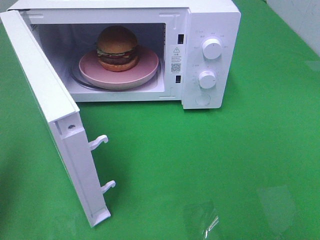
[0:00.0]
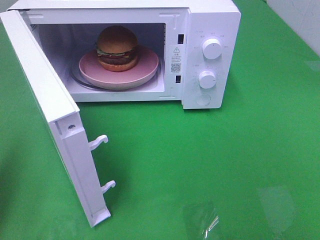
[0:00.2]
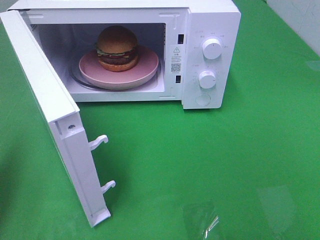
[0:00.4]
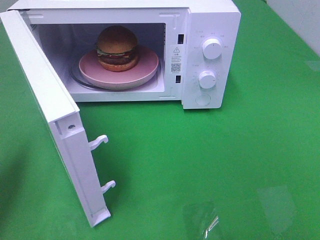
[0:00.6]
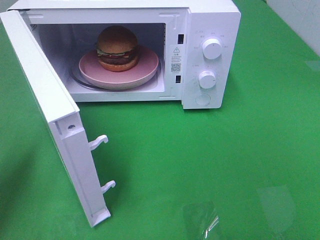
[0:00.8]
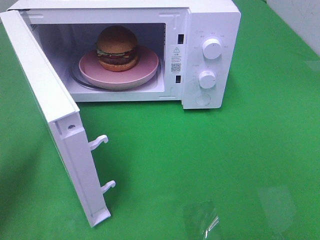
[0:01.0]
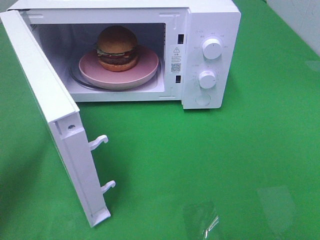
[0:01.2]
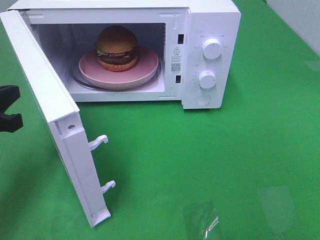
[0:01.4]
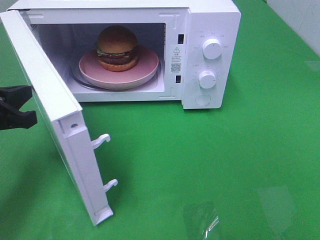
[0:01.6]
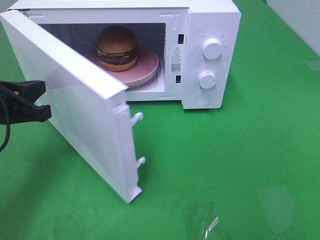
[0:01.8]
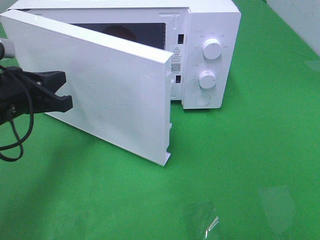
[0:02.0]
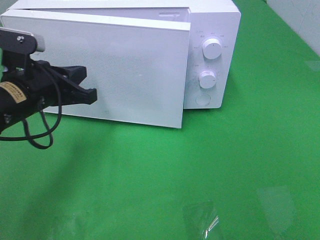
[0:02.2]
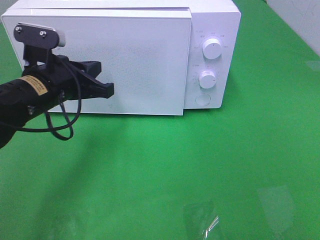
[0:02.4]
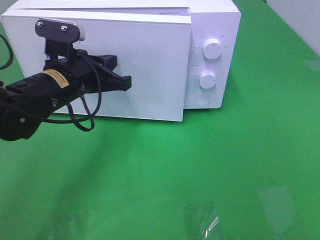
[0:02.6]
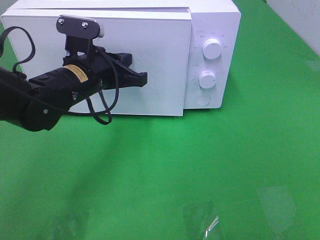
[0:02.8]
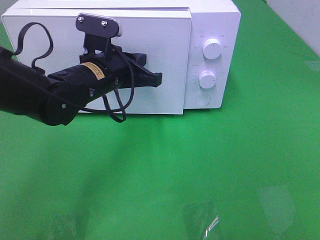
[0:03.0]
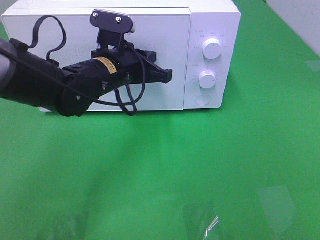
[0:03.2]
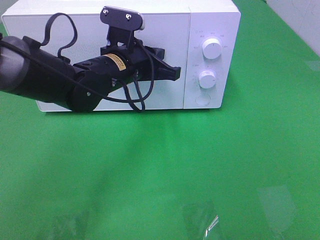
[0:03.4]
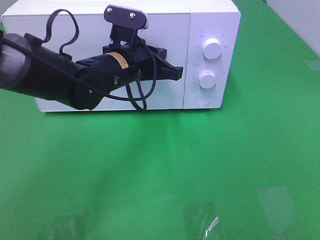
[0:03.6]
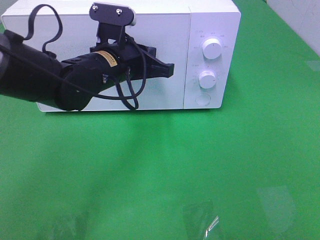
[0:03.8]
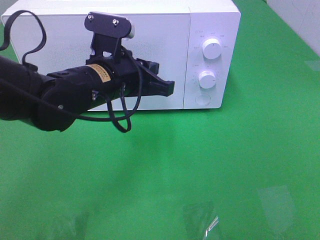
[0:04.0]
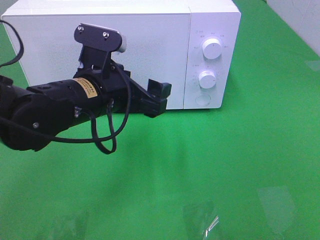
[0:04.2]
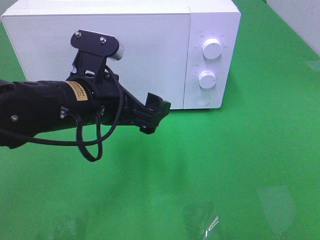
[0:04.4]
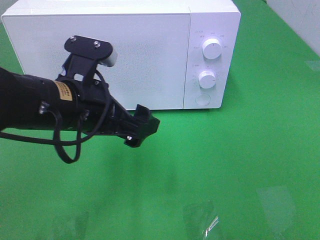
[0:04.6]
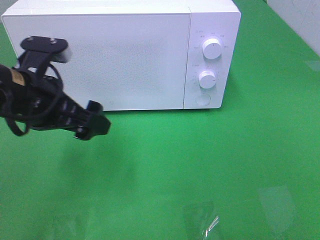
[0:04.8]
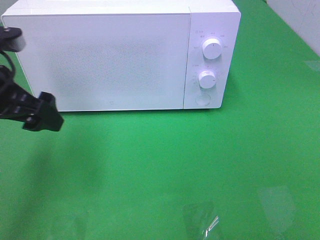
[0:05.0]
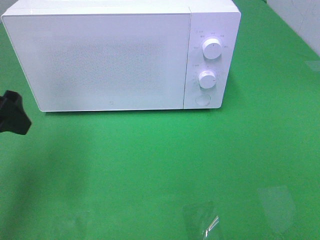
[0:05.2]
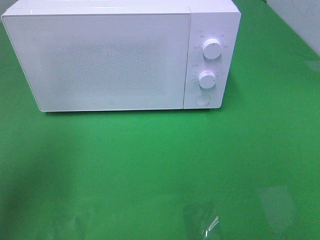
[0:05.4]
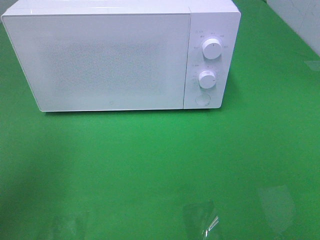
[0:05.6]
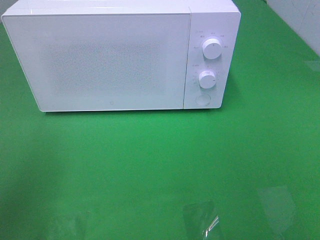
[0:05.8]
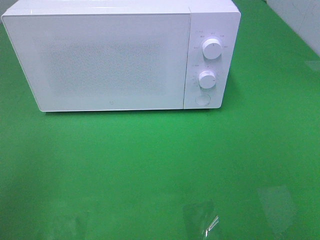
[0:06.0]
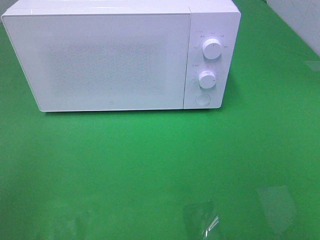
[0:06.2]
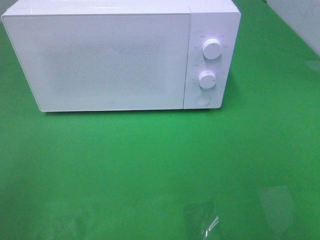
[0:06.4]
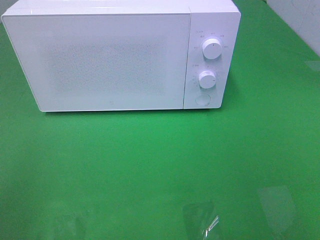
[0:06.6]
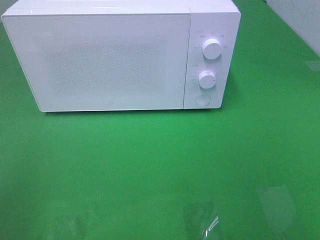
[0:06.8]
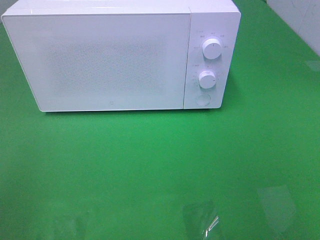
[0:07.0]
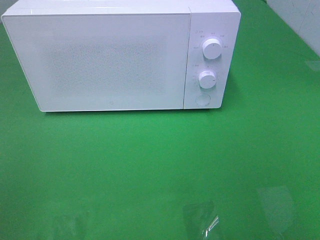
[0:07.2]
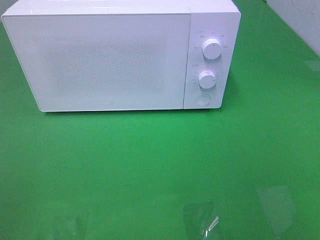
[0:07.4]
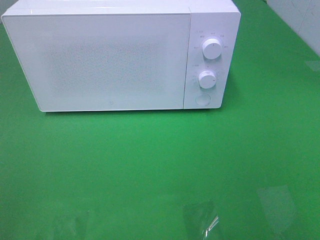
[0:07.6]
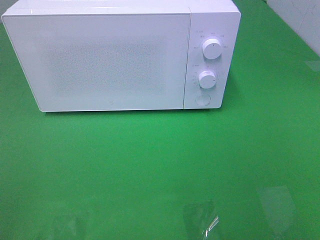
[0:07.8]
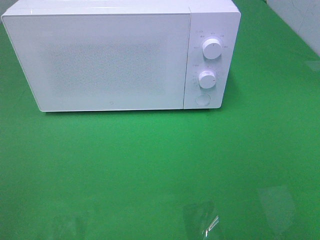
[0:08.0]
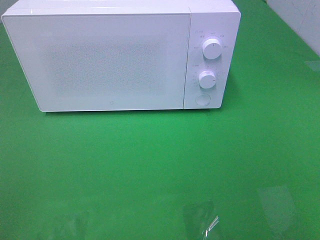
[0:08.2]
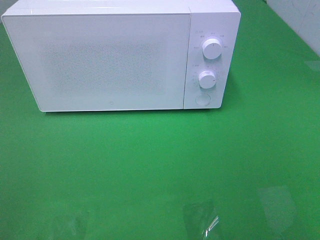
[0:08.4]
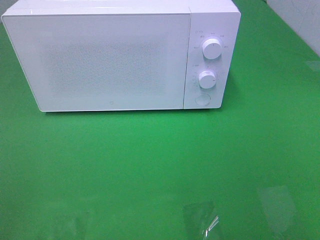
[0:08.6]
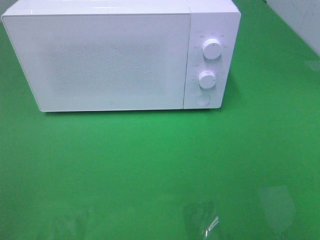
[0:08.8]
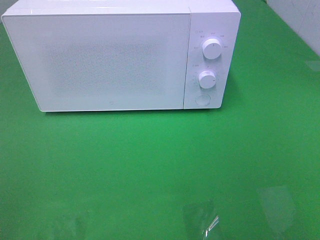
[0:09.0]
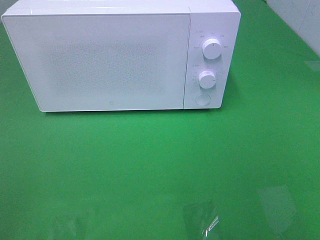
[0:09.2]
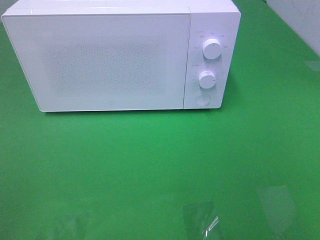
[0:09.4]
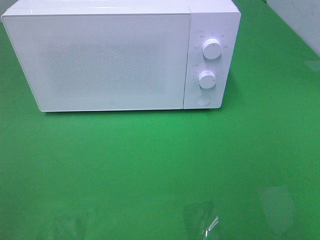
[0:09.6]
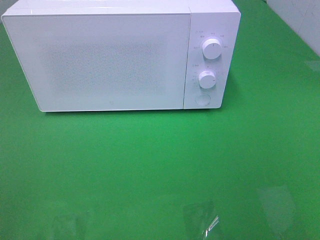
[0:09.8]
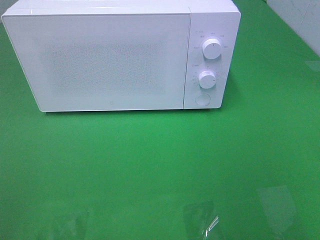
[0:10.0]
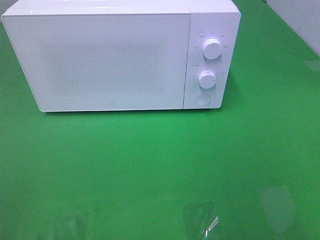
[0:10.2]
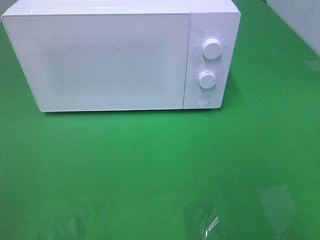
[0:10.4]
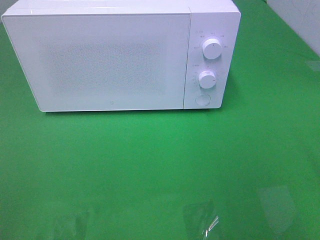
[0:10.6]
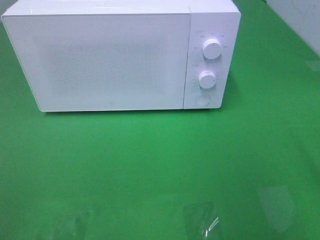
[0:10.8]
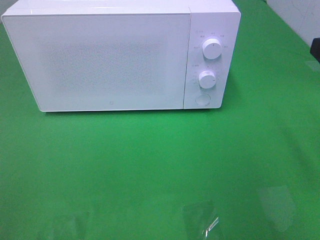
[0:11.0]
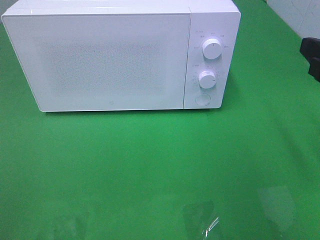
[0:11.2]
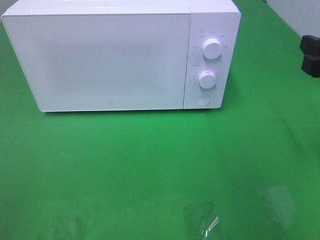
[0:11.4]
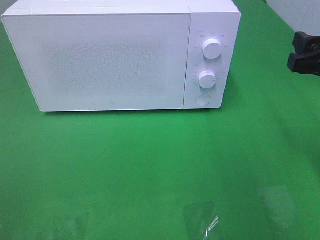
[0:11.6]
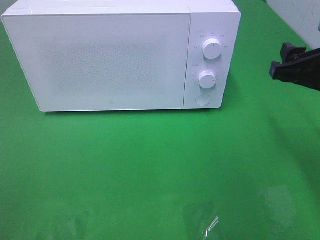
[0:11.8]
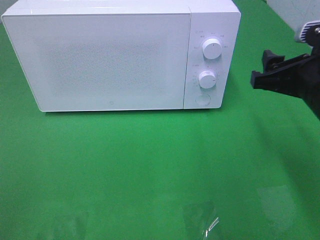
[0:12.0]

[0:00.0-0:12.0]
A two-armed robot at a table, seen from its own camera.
Task of the whole recording: Heat the burger.
Step, 0:00.0 to 0:03.8: Left hand: close the microwave door.
0:00.0 to 0:01.6: The left gripper moves downward, forward and to the right, approximately 15 cm.
0:01.6 to 0:03.0: The left gripper travels to the right and forward by roughly 20 cm.
0:03.0 to 0:04.4: The left gripper shifts some 10 cm backward, and opens its fingers.
0:04.4 to 0:06.0: The left gripper moves to the left, backward and upward, approximately 30 cm.
0:07.6 to 0:09.0: Neither gripper changes place.
0:10.4 to 0:12.0: The right gripper goes roughly 20 cm forward, downward and to the left.

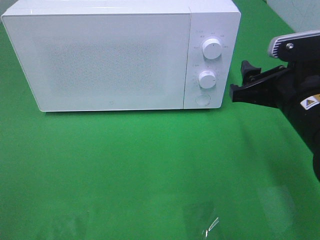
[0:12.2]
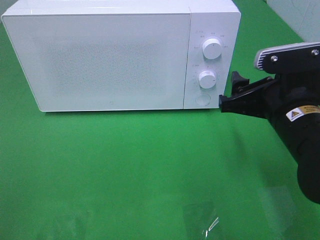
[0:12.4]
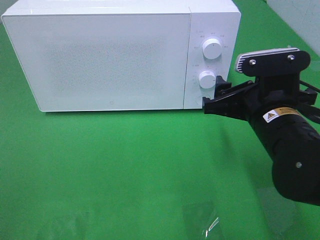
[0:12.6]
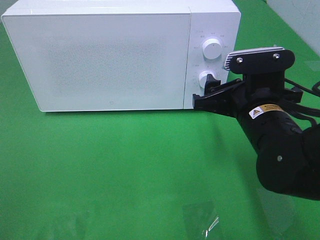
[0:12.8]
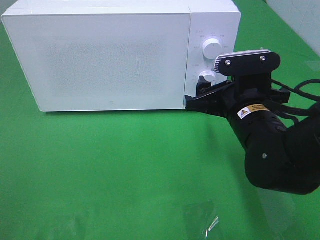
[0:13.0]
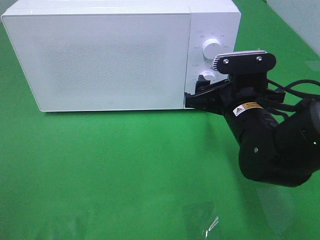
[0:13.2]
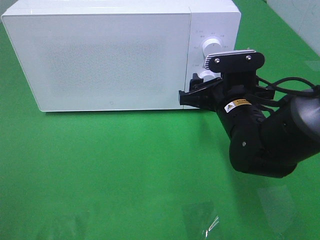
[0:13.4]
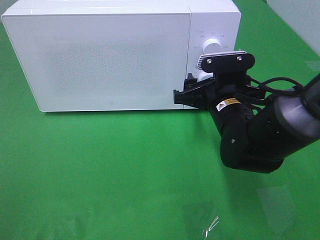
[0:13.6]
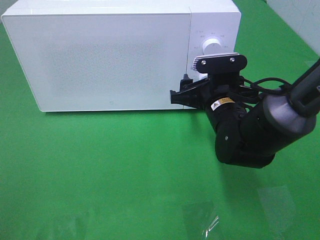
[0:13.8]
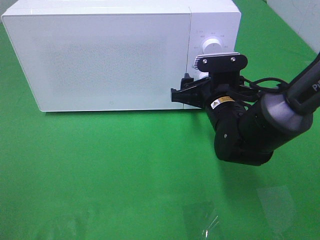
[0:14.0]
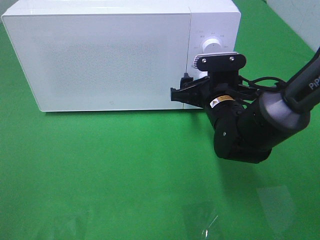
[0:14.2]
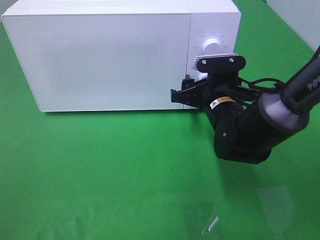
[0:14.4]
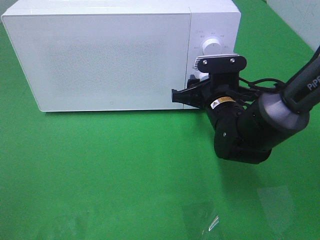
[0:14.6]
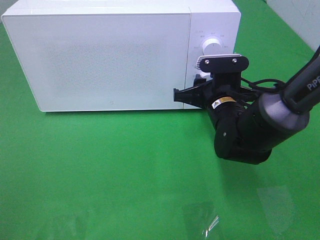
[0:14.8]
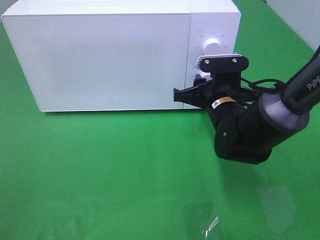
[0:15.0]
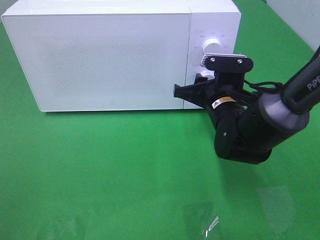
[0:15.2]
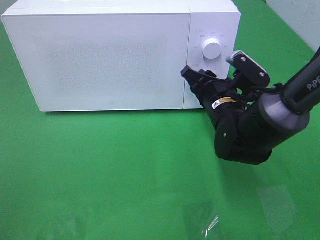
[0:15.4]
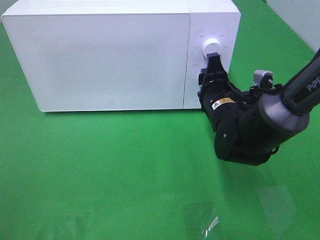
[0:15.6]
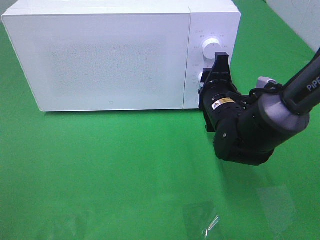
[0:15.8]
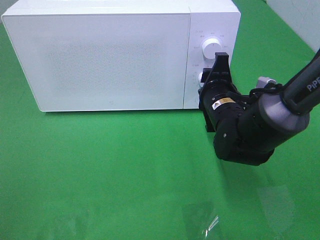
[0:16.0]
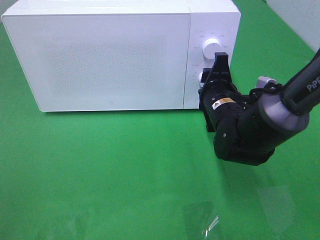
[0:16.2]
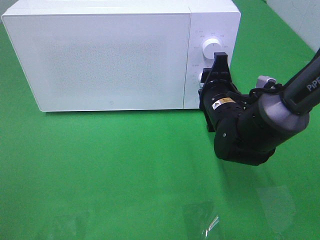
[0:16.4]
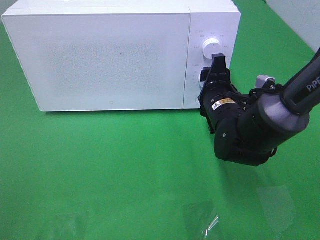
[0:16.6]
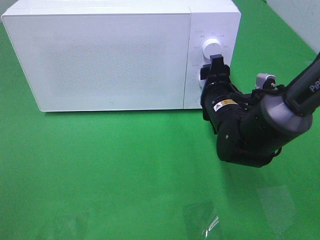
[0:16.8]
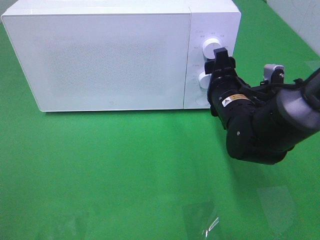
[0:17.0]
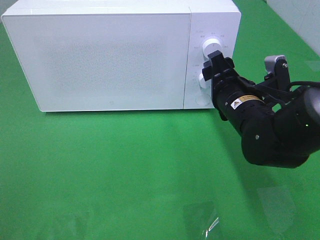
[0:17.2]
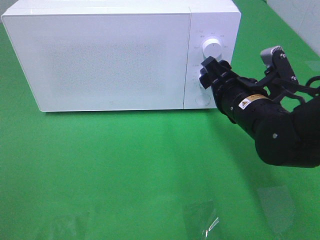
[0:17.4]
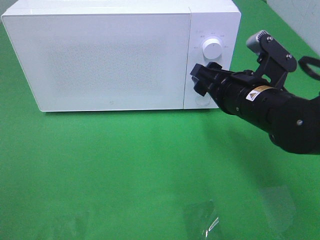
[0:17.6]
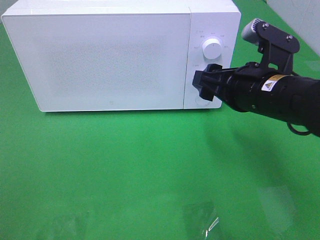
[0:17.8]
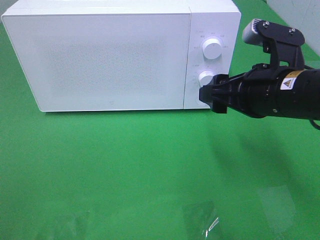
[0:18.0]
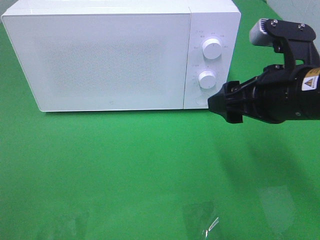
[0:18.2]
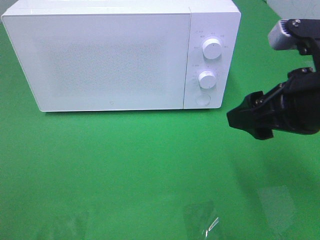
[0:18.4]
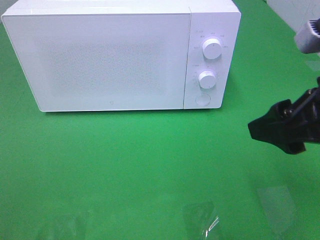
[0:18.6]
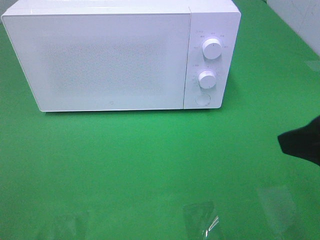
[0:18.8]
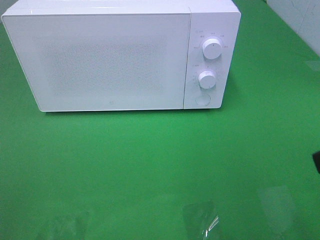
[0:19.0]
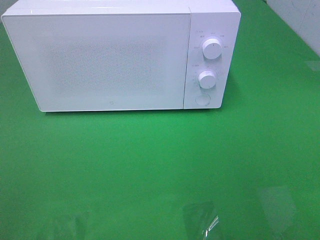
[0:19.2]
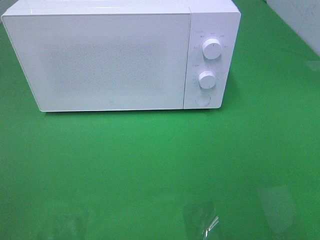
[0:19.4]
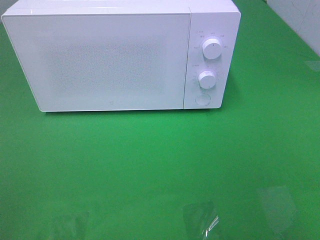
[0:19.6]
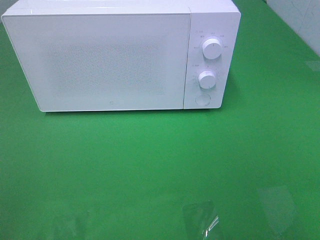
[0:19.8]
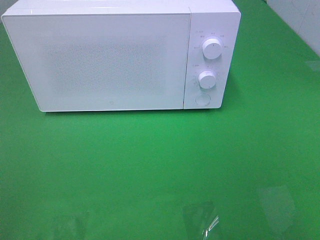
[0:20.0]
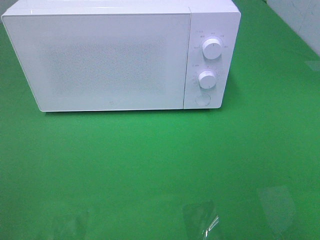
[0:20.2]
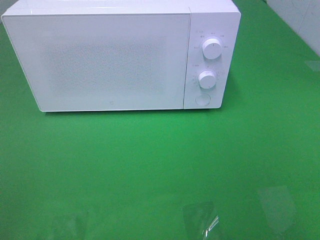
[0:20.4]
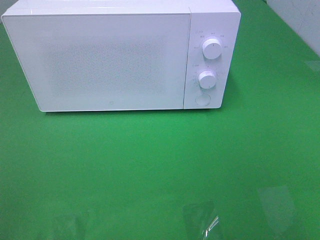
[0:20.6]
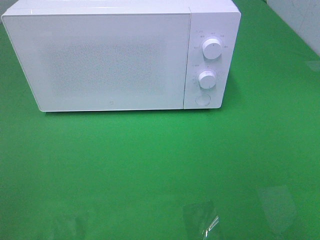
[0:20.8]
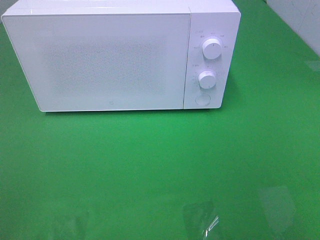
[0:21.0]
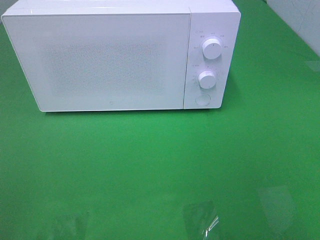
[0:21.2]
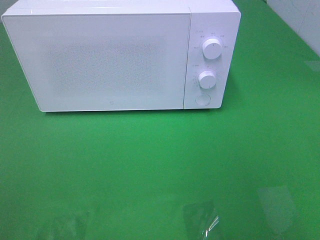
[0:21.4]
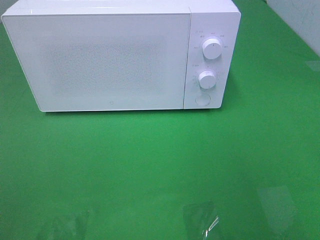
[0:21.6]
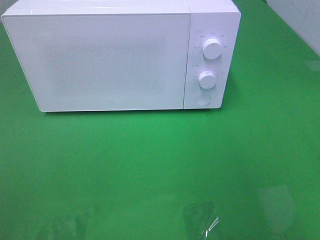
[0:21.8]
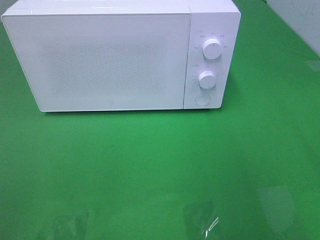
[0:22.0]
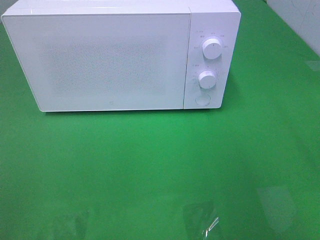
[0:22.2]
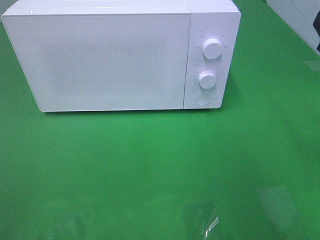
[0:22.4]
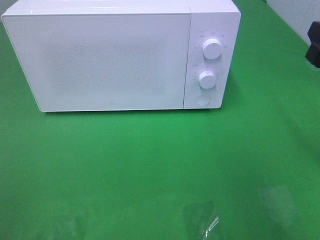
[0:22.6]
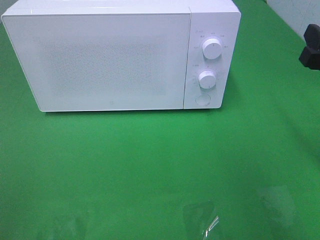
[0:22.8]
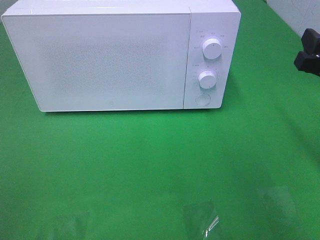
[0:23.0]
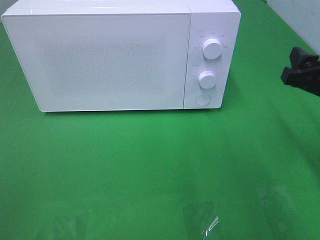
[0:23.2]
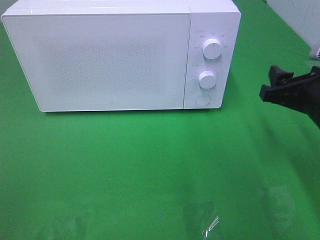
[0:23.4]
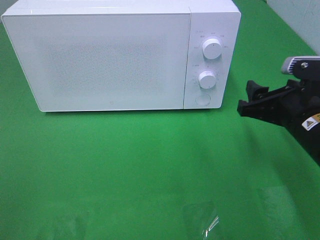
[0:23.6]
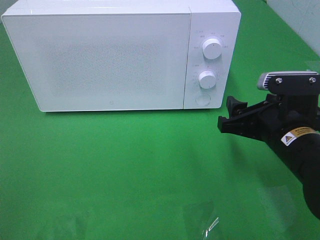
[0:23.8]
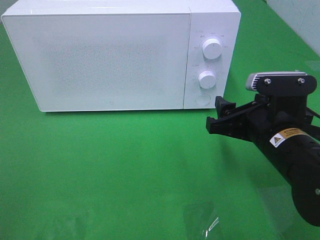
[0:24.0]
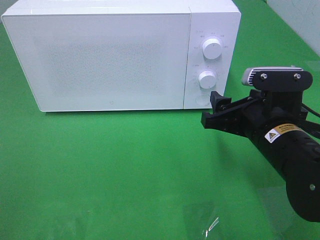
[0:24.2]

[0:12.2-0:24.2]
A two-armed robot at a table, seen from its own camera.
Task of the whole recording: Heat the burger.
Step, 0:12.2 to 0:16.6: Right hand: twist timer button.
0:12.2 to 0:13.8: The right gripper moves forward, to the left and downward, approximately 15 cm.
0:13.8 to 0:15.2: The right gripper closes.
0:16.6 to 0:18.2: The right gripper travels upward, backward and to the right by some 15 cm.
0:18.2 to 0:19.8: The right gripper goes roughly 25 cm backward and to the right.
0:21.2 to 0:22.6: The right gripper is displaced forward and downward by roughly 20 cm.
0:22.6 to 0:24.2: The right gripper is displaced to the left and downward by about 15 cm.
